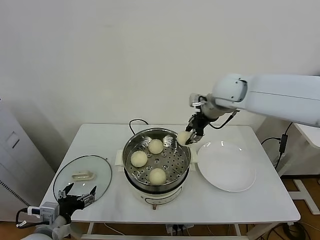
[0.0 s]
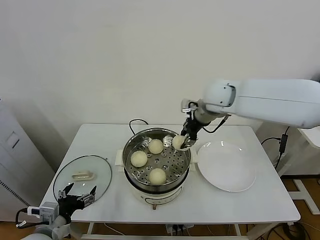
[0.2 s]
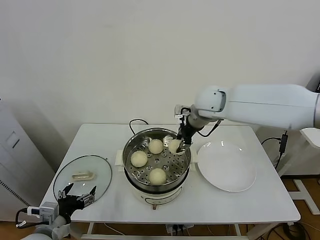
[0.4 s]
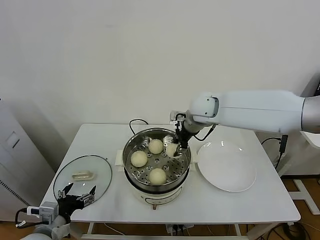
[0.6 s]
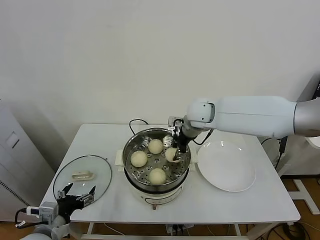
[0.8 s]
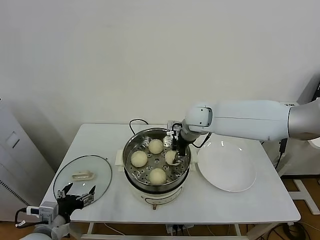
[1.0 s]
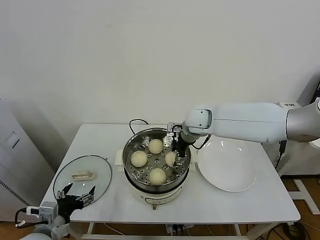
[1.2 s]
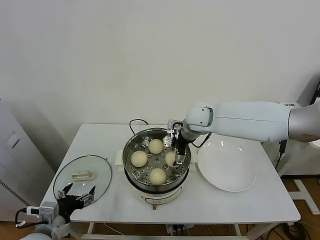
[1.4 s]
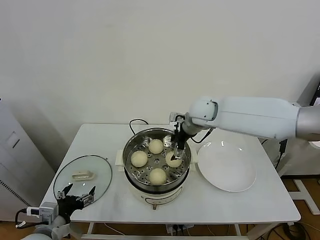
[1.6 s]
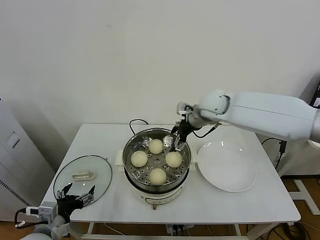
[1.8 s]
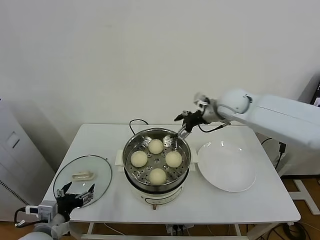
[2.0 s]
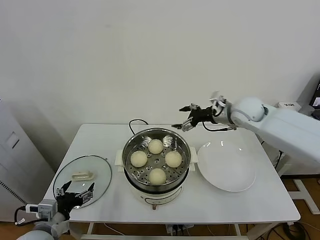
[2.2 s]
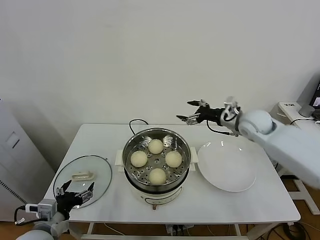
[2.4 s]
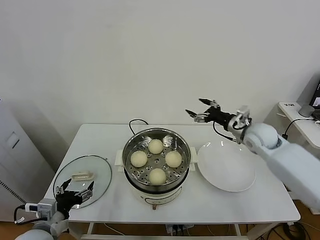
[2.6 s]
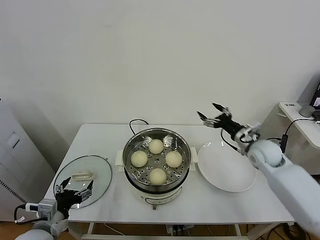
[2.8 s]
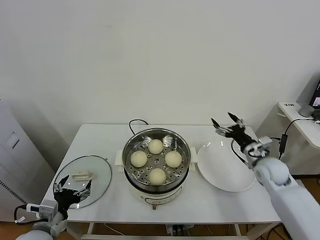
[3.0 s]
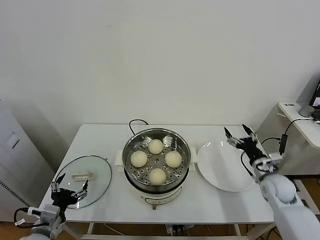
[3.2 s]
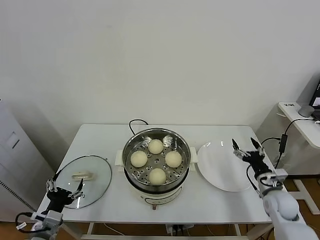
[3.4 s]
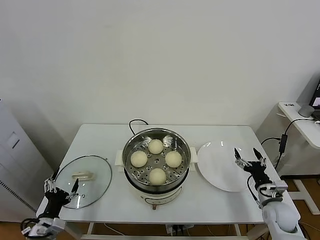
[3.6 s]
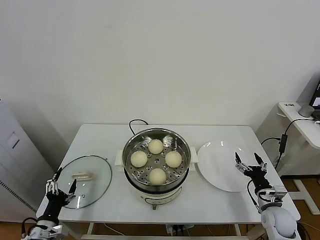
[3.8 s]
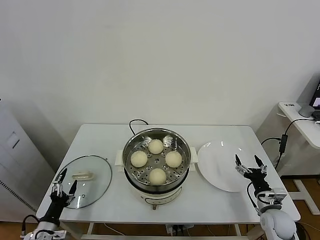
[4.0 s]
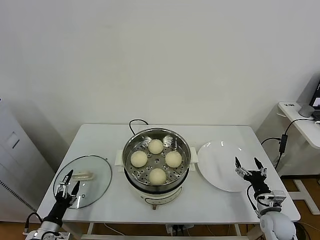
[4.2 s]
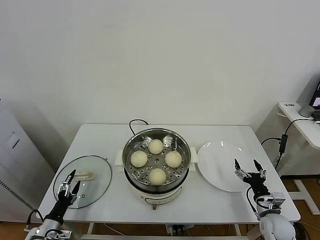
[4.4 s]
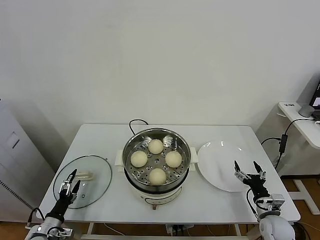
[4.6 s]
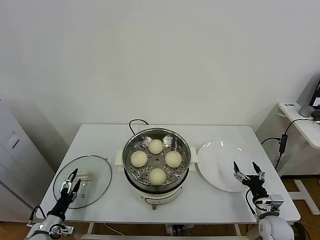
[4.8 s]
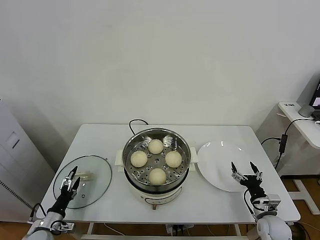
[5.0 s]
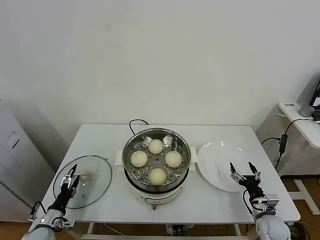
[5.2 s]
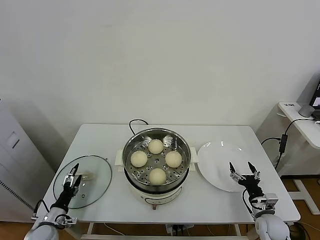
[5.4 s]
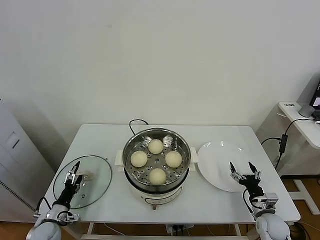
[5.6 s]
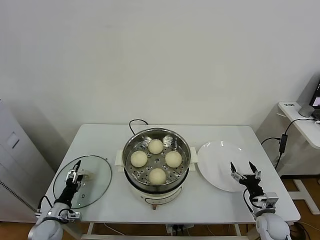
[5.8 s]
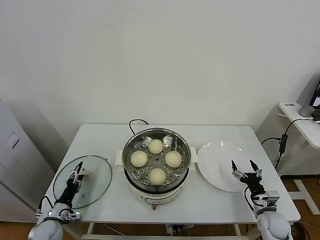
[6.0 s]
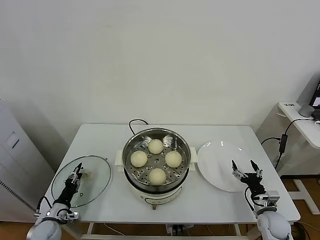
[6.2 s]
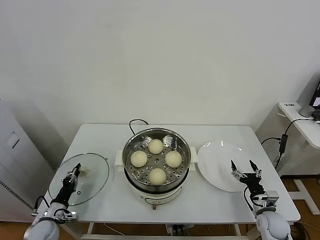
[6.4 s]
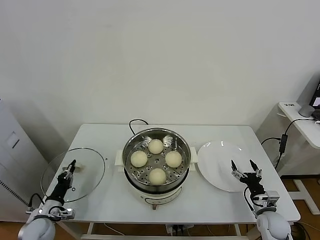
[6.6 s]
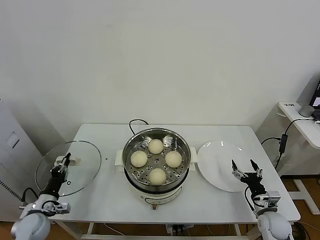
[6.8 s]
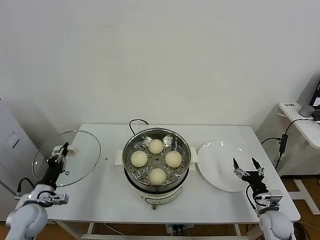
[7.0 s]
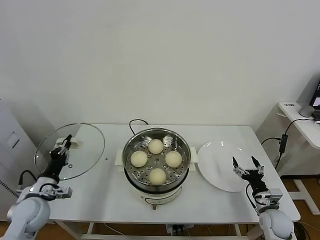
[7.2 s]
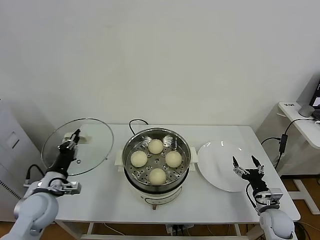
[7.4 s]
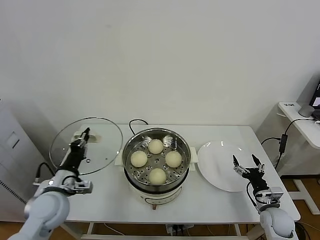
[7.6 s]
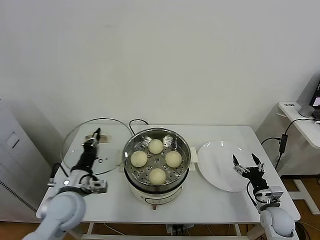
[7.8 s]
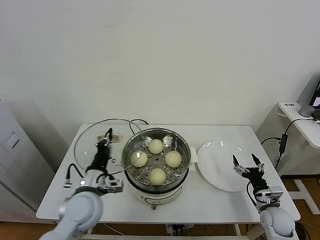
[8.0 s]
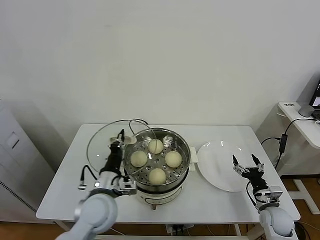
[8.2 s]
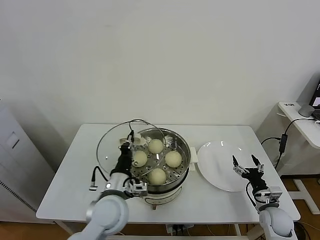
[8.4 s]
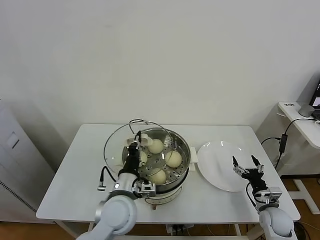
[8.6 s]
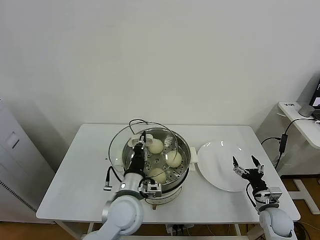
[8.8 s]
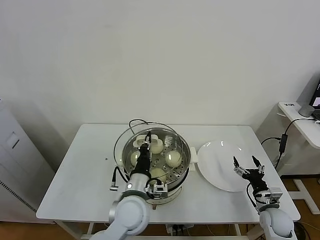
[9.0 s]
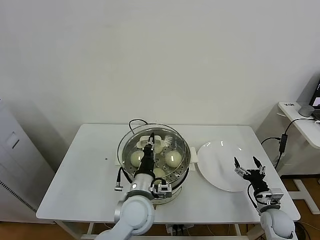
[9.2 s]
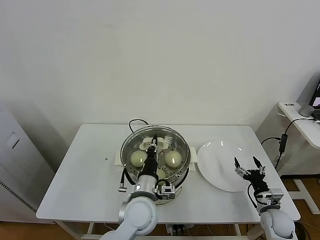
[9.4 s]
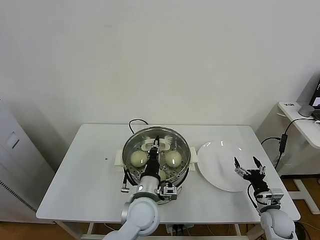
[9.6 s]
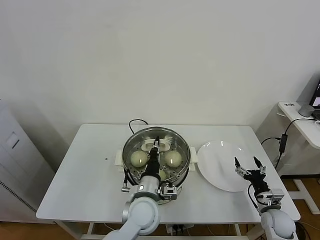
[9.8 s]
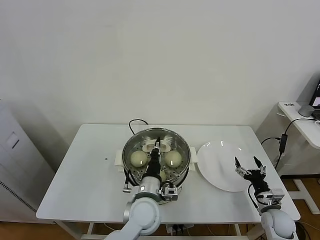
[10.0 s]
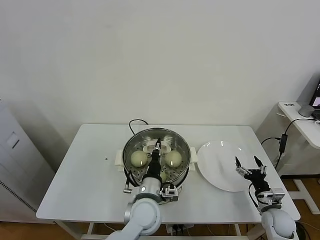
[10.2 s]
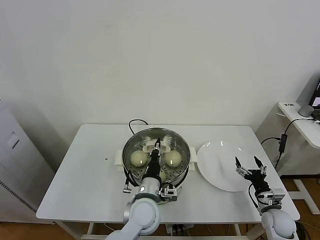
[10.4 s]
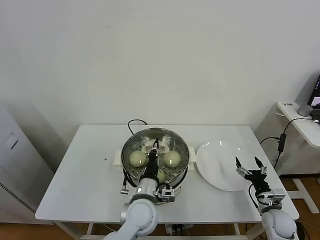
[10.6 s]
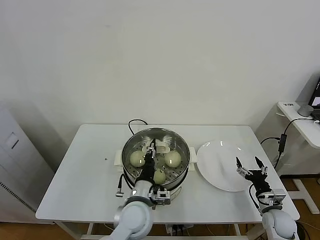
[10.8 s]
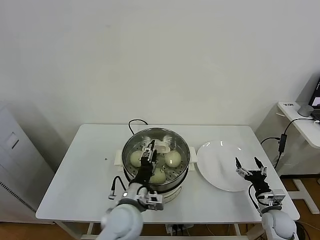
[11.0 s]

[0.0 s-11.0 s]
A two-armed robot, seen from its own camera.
Task of the whole recording: take steamed baozi put them in steamer.
Step, 1.8 to 6.6 s: Grasp the pot lid with left gripper.
0.0 to 1.6 s: The right gripper shifts some 5 cm downward, and opens.
1.6 to 3.2 s: The right gripper moves to the right, downward and backward, roughly 35 cm.
3.2 to 4.8 s: The left gripper shifts approximately 15 cm downward and to the left. The right gripper shifts roughly 15 cm downward and backward.
4.8 to 6.2 s: The left gripper closes up.
6.2 to 7.8 s: The left gripper is displaced upward and to the right by approximately 25 cm, and closes up.
7.8 to 9.4 s: The left gripper heads to the right, covering roughly 20 cm.
9.4 to 11.0 s: The left gripper opens its fingers.

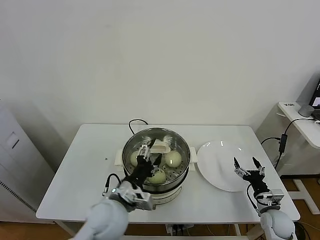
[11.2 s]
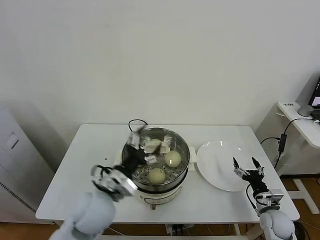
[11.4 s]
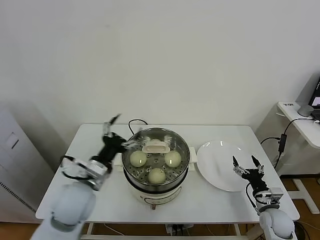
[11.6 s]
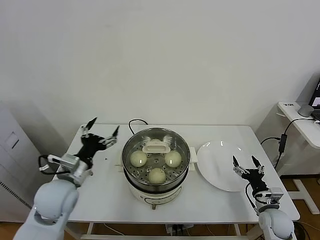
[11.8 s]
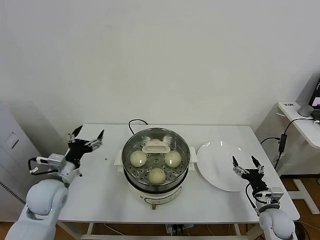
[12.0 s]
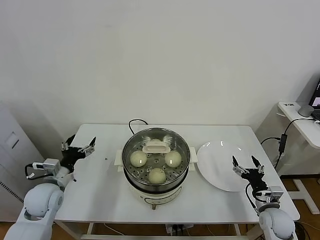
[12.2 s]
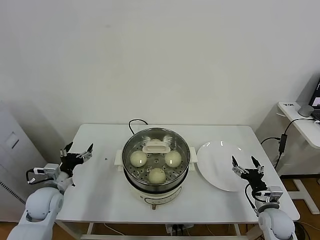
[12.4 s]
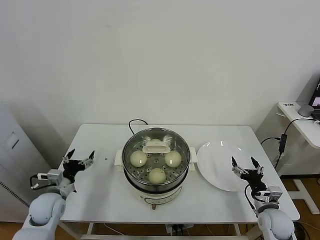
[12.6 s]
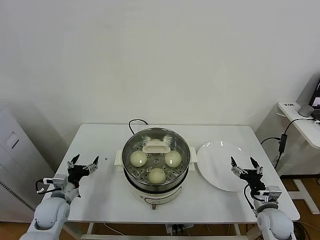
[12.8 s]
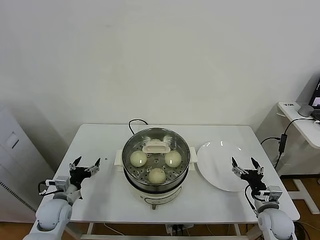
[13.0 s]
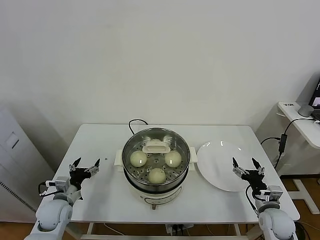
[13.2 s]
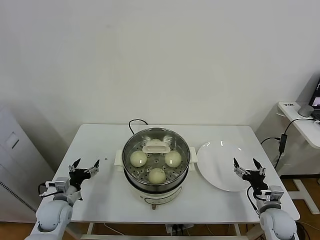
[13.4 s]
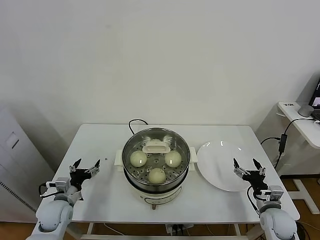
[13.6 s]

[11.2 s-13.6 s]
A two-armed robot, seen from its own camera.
Task of the whole recording: take steamed baozi put them in steamer.
11.2 to 12.4 s: The left gripper is displaced to the left by approximately 25 cm.
12.4 to 13.6 s: The left gripper goes some 5 cm downward.

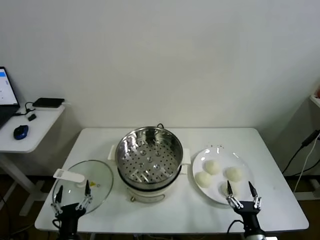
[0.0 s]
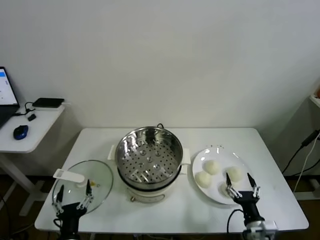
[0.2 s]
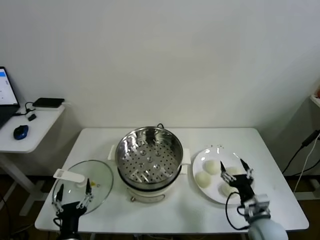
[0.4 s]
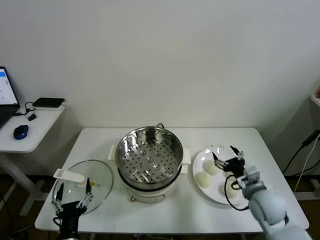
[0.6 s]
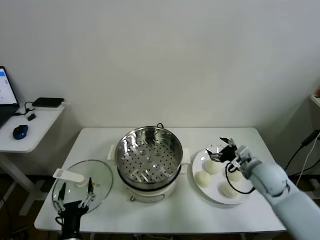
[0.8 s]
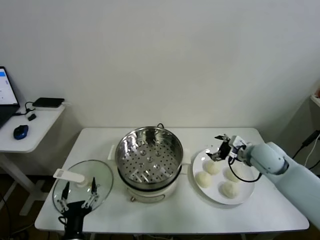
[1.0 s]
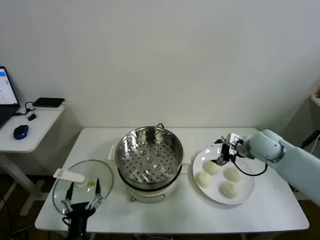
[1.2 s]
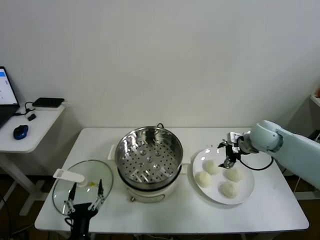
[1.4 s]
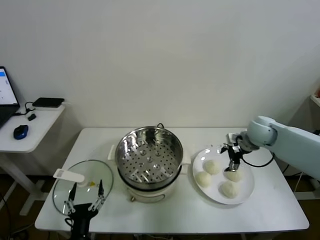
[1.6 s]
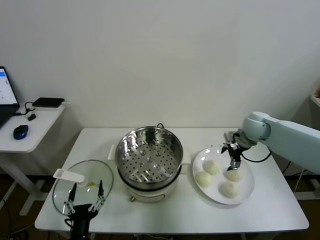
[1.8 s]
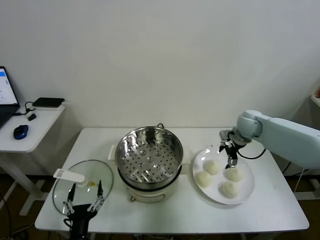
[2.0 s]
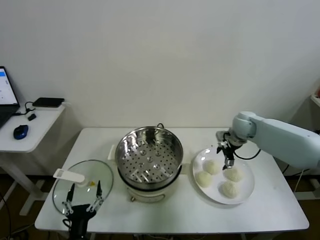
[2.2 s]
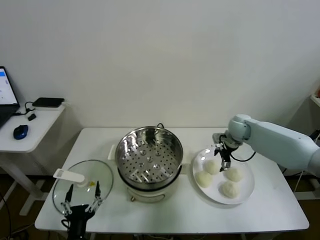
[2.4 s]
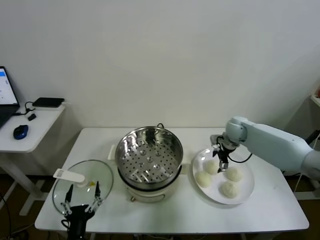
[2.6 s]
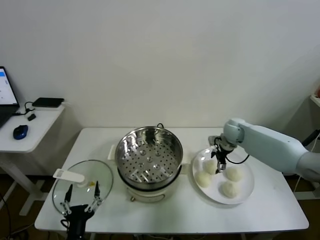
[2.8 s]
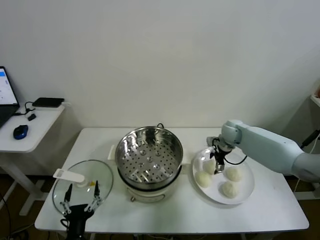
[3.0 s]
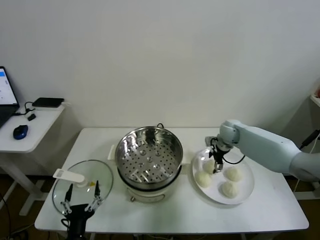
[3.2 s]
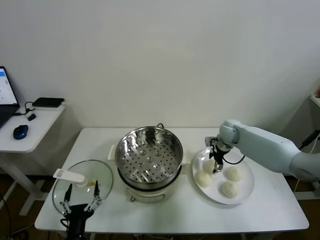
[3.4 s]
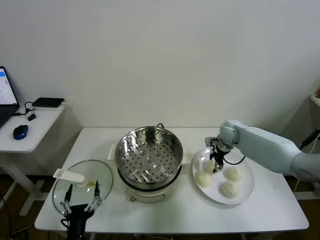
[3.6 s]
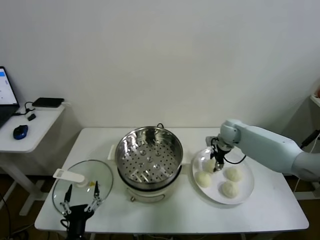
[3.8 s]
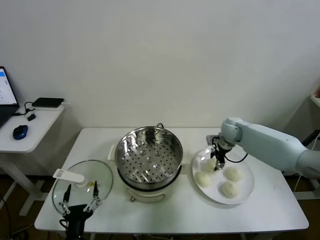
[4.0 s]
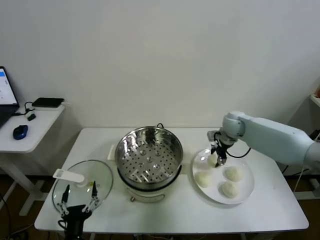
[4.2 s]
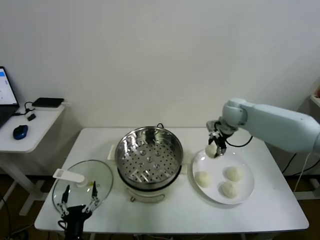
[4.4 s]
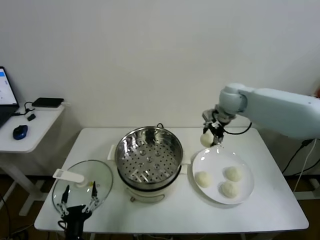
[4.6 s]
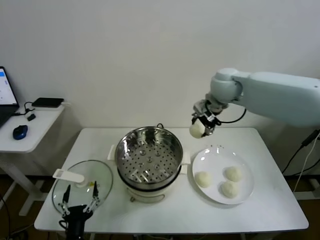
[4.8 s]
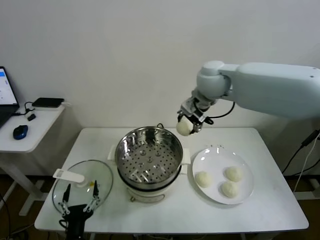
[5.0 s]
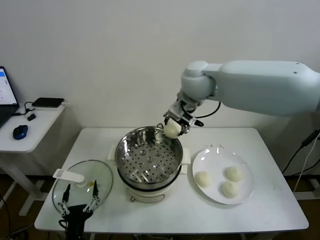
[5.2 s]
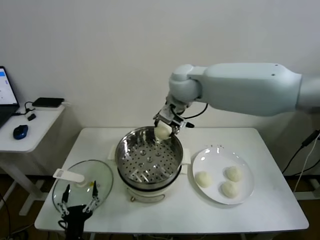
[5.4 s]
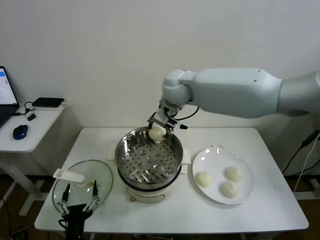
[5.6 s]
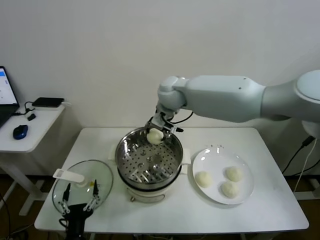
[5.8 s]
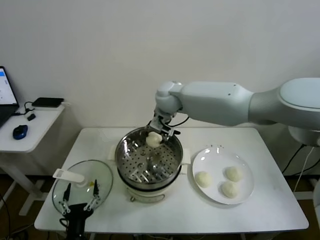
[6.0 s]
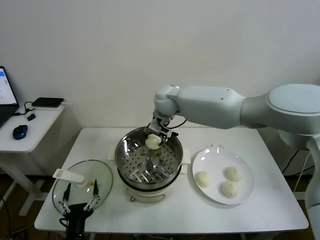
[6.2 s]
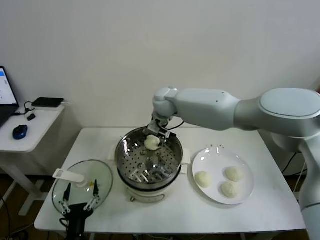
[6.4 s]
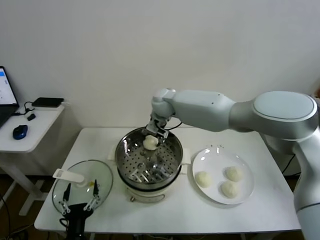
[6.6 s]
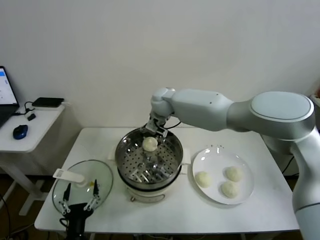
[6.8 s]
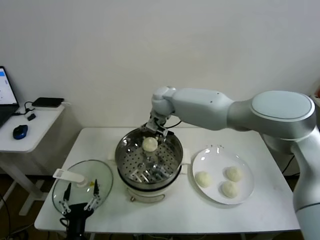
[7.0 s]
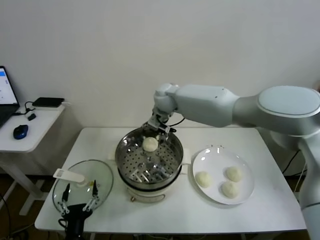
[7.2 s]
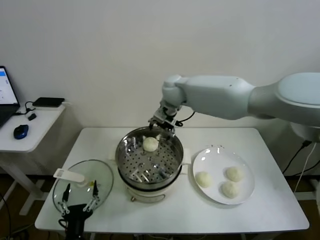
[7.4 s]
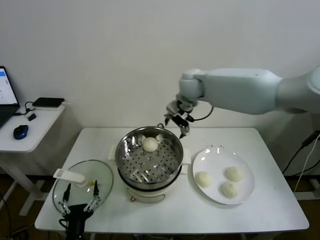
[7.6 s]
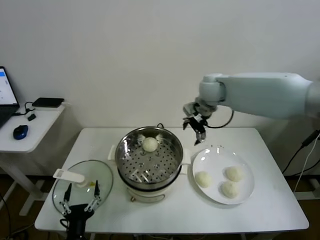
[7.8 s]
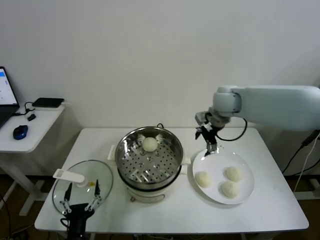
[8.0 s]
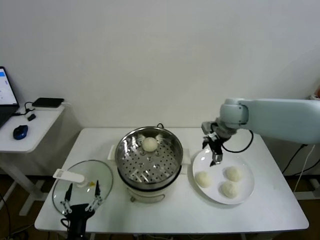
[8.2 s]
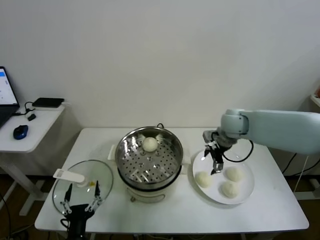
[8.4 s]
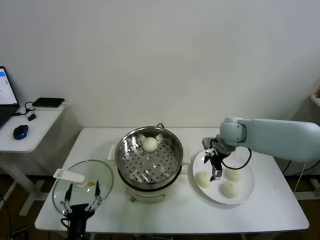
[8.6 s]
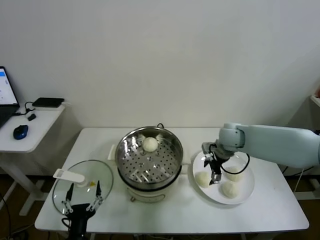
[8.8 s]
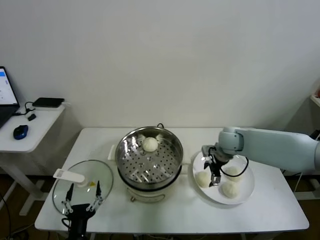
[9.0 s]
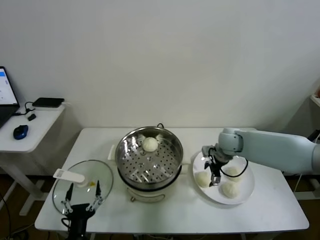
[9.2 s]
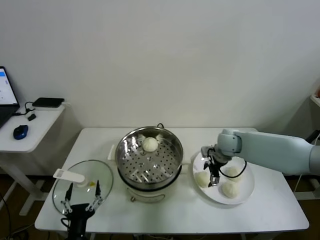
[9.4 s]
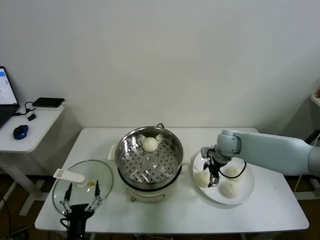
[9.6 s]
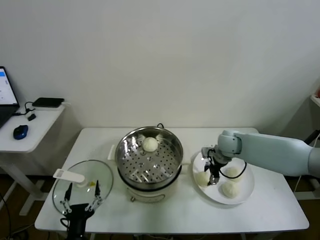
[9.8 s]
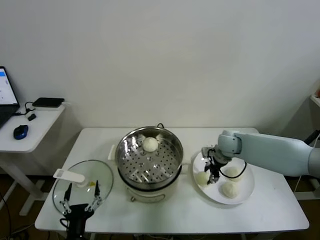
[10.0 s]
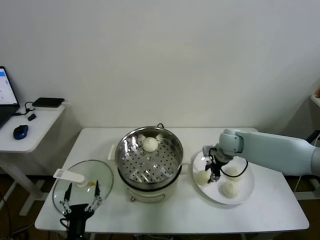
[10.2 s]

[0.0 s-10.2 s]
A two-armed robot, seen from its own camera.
Task of the whole recording: take steamed baozi put them in steamer.
Step, 0.0 to 3.6 s: Grasp the baozi in the plate with right gripper.
Step, 3.8 to 7.0 s: Place the baozi on the steamer with right gripper.
Step, 7.2 to 10.0 s: Grasp the baozi in the plate with right gripper.
1.4 to 3.0 s: The right gripper is displaced downward, forward and to the left by approximately 15 cm.
3.0 to 4.4 s: The right gripper shifts about 15 cm upward, and closes its fingers.
4.4 to 5.8 s: The right gripper moves to the left, some 20 cm.
5.8 to 7.2 s: The right gripper opens up.
7.2 to 8.8 s: The right gripper travels to the right and downward by roughly 25 cm.
8.8 to 10.2 s: The right gripper closes up.
